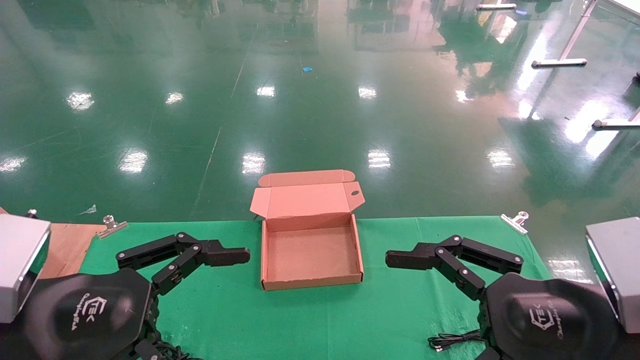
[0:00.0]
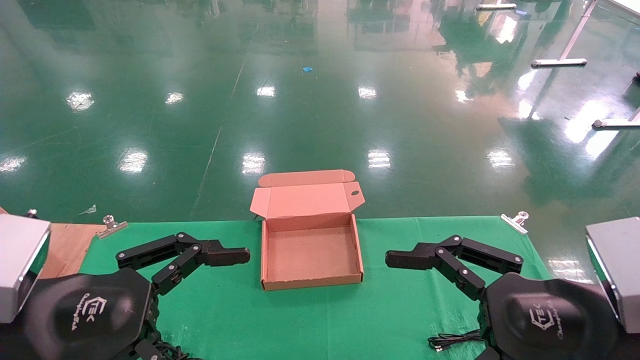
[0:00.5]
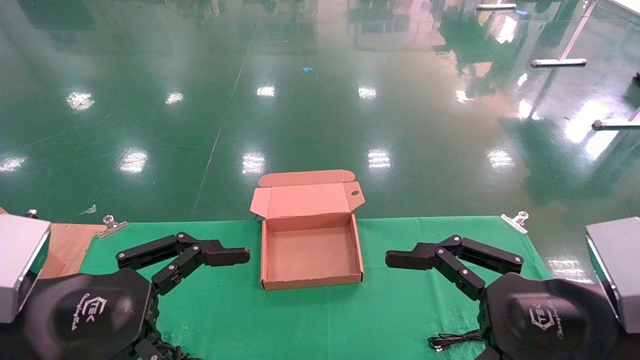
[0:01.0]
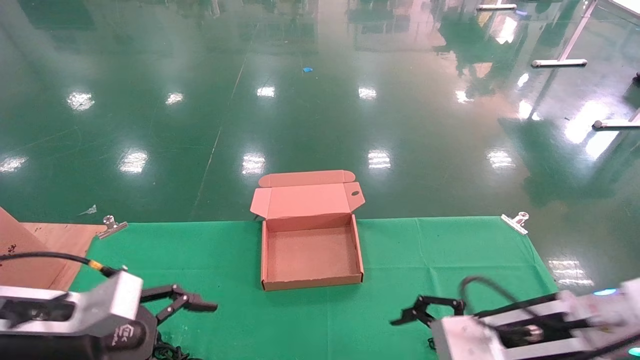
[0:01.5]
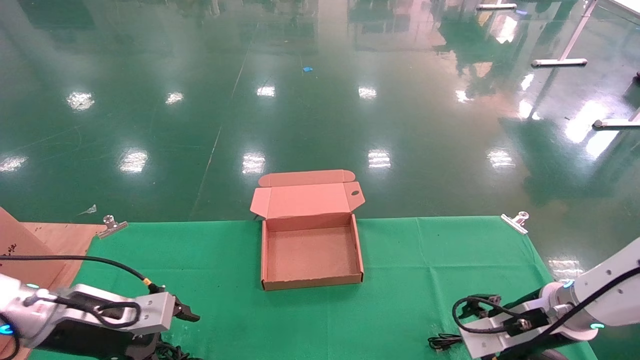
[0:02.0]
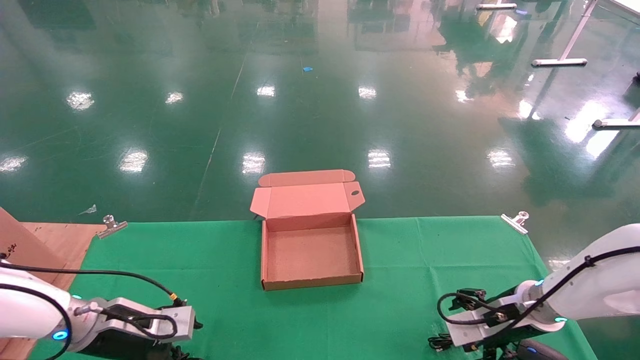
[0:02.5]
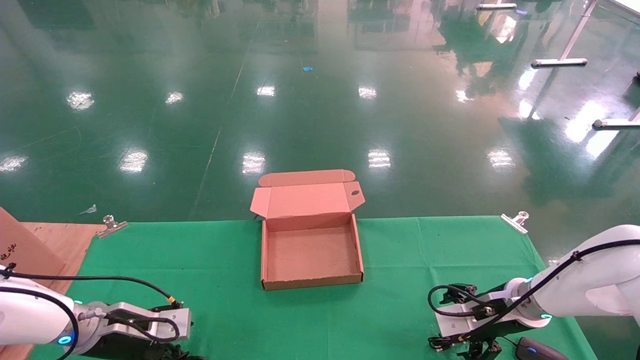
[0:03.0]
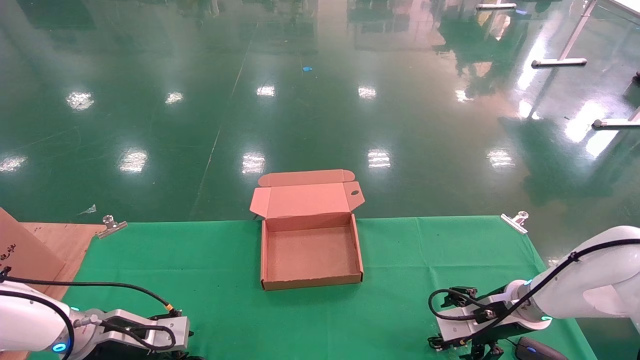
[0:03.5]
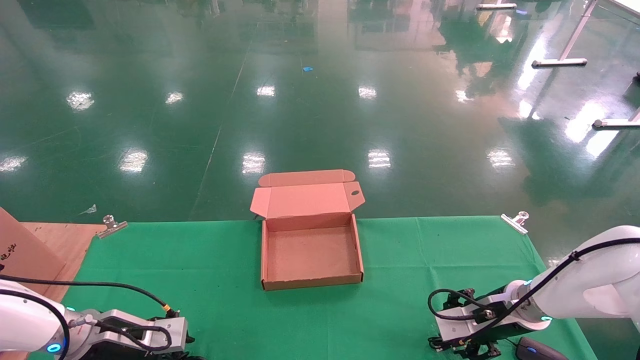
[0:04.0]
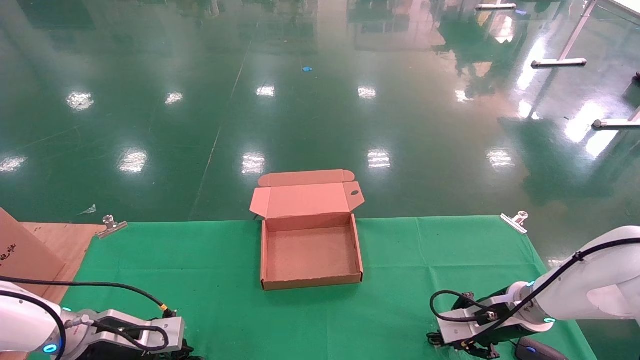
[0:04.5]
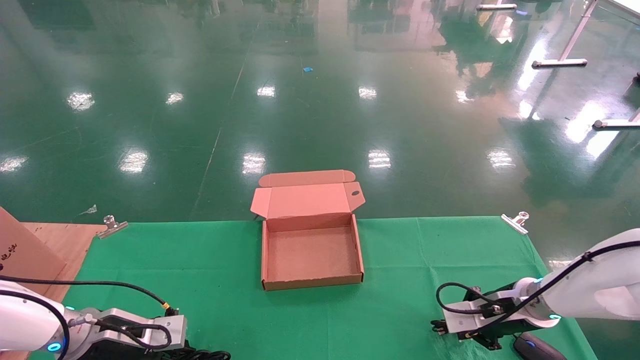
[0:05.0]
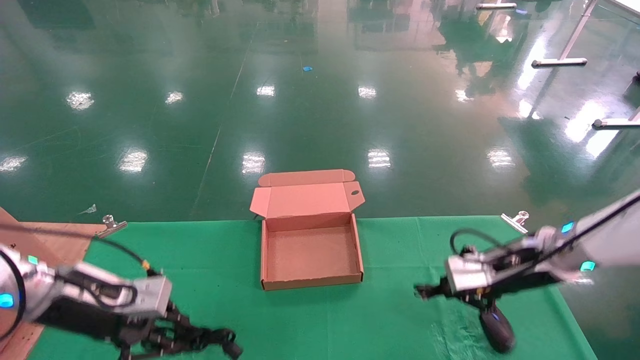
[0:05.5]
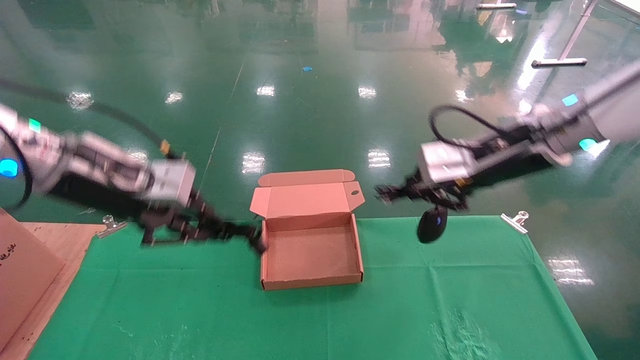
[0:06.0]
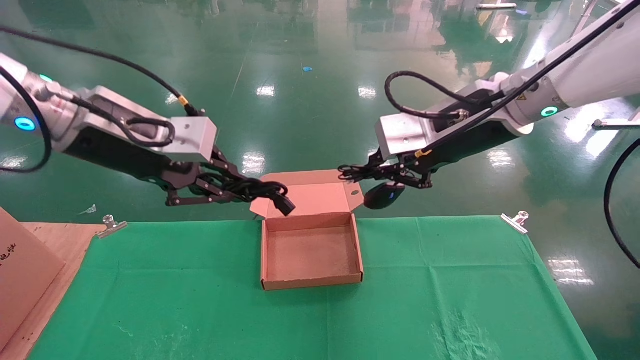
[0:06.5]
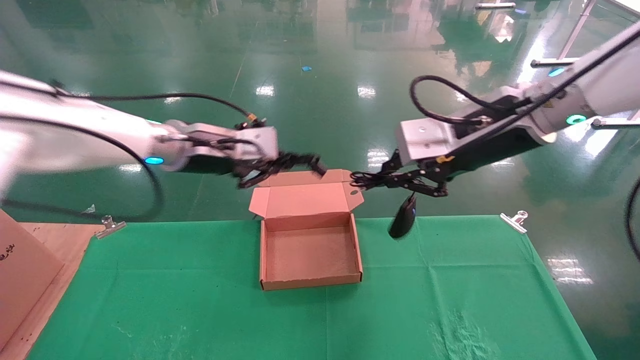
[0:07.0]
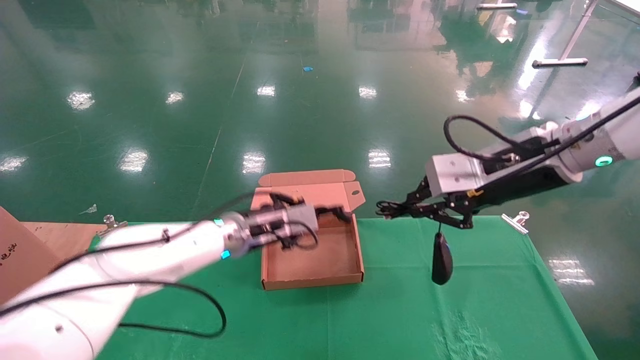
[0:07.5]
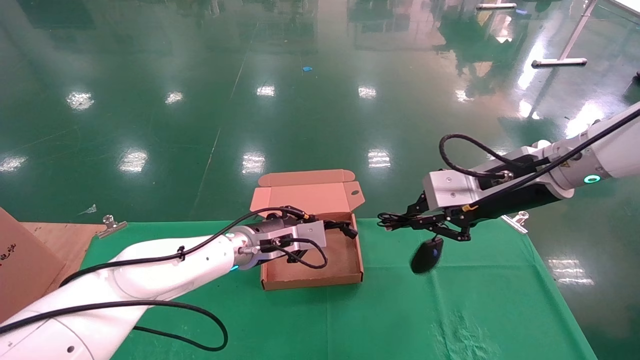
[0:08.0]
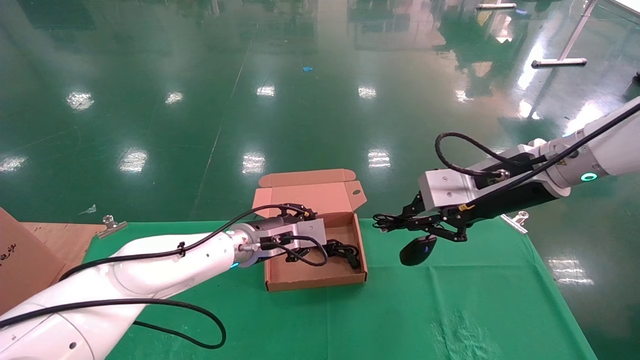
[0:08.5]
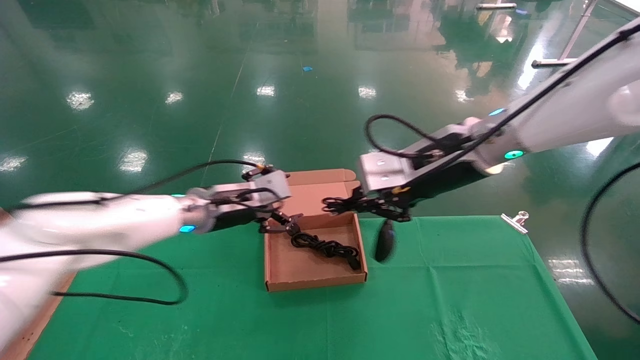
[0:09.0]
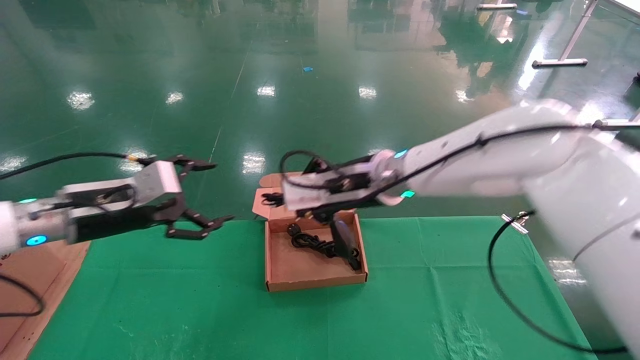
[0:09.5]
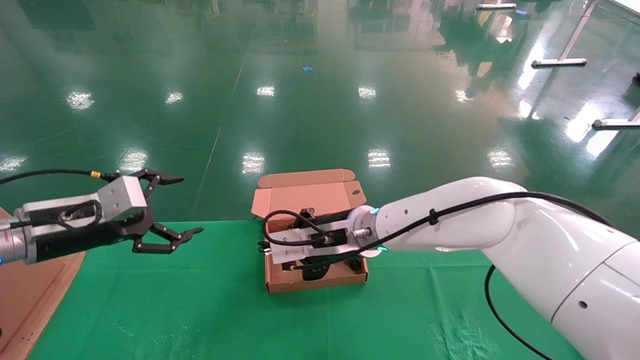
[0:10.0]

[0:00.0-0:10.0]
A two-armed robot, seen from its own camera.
Step, 0:01.5 to 0:05.0: Grab and lift both the mouse and power cord from the accessory packaging area at the same time.
0:00.0 to 0:02.0: The two grippers go approximately 20 cm forward and downward.
0:02.0 to 0:04.0: The right gripper shifts some 5 cm forward. Meanwhile the left gripper heads downward, covering about 5 cm.
0:04.0 to 0:06.0: The two grippers go approximately 25 cm upward. The left gripper closes, while the right gripper closes its fingers.
0:06.0 to 0:08.0: The left gripper is displaced downward, to the right and forward by some 25 cm.
0:08.0 to 0:10.0: The right gripper travels to the left and downward by about 20 cm. The left gripper is displaced to the left and backward by some 25 cm, and opens its fingers.

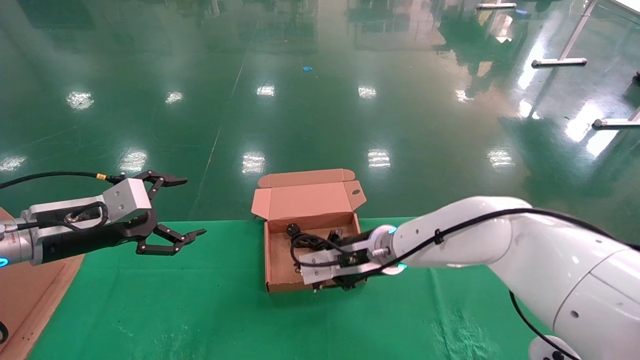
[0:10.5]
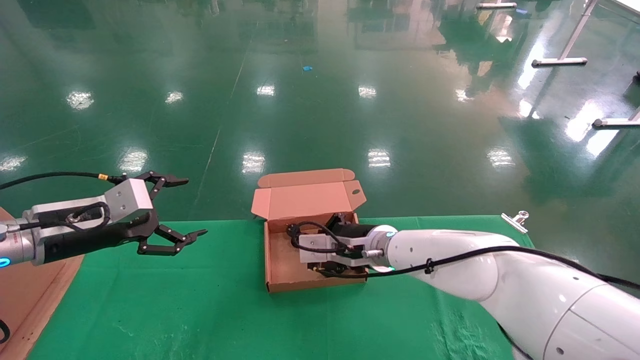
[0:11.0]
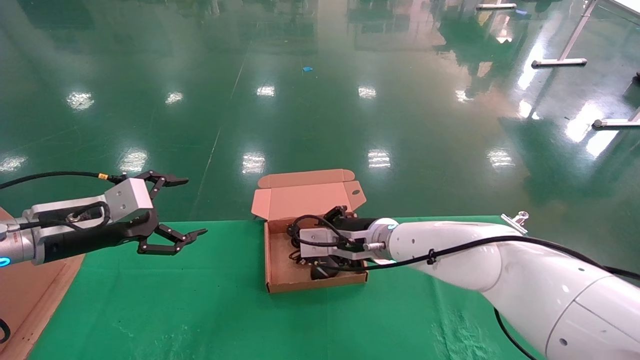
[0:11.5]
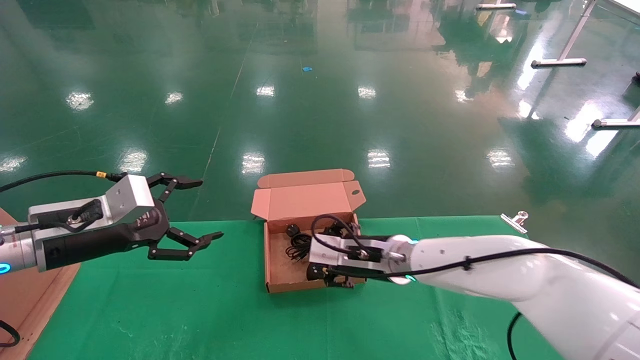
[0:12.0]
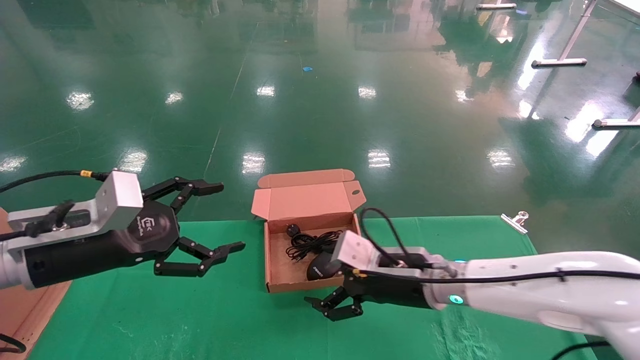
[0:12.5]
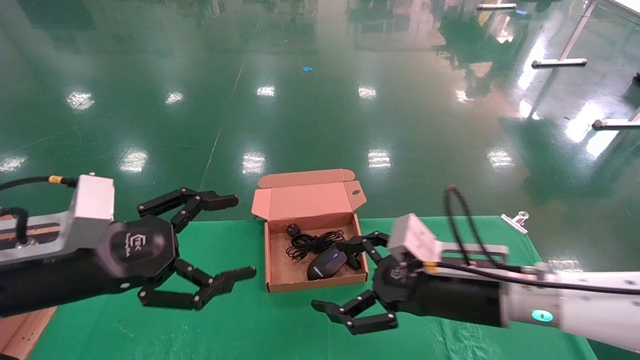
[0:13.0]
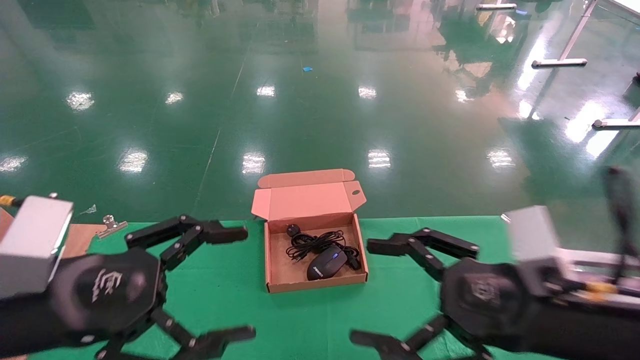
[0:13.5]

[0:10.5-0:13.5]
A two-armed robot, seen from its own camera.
0:10.5 to 0:12.0: The right gripper opens its fingers.
0:12.0 to 0:13.5: The right gripper heads backward and to the right, covering about 25 cm, and opens. The left gripper moves backward and to the right, about 15 cm.

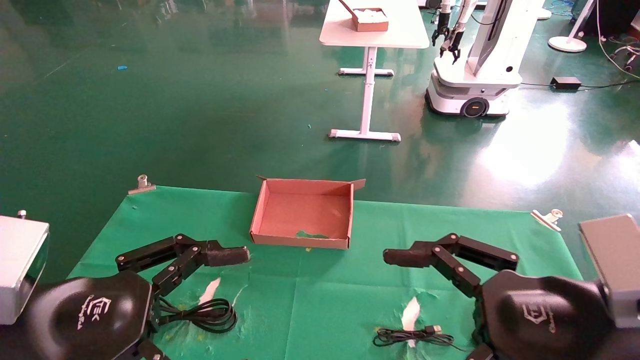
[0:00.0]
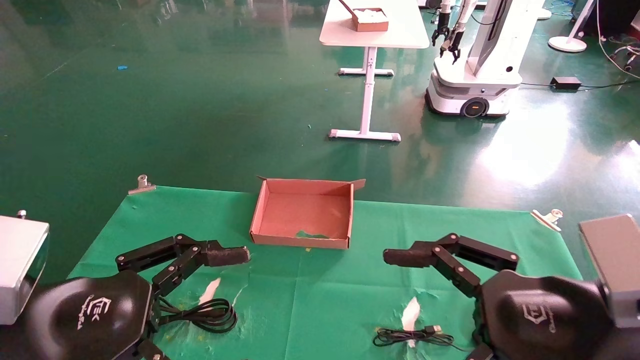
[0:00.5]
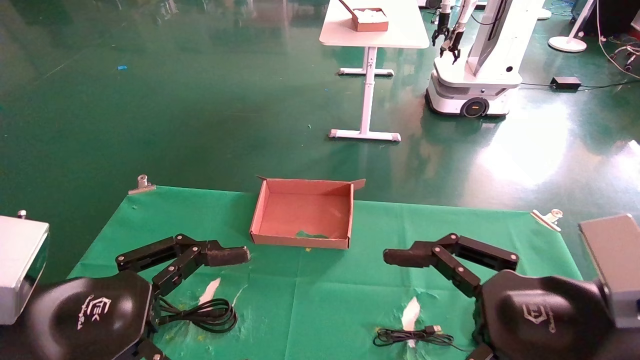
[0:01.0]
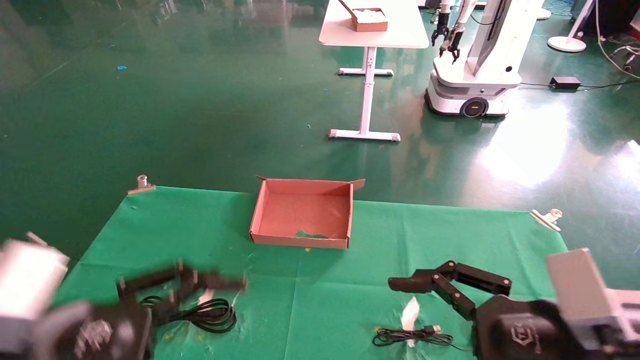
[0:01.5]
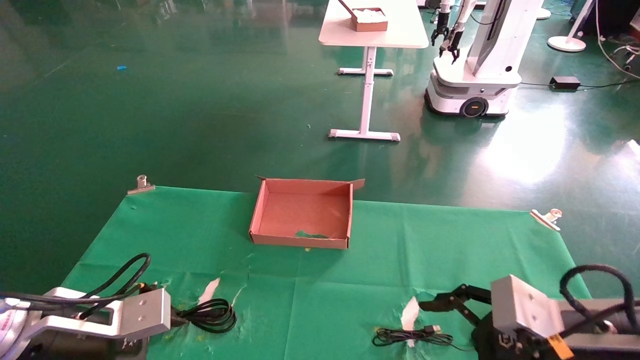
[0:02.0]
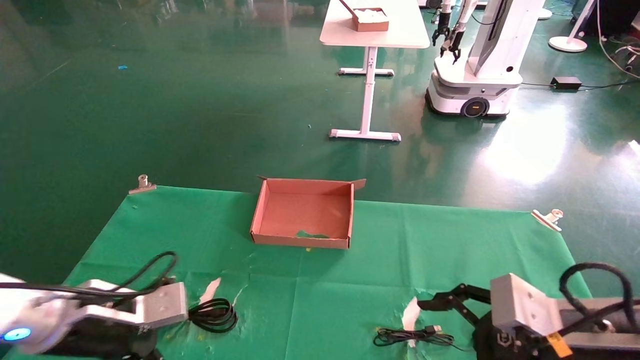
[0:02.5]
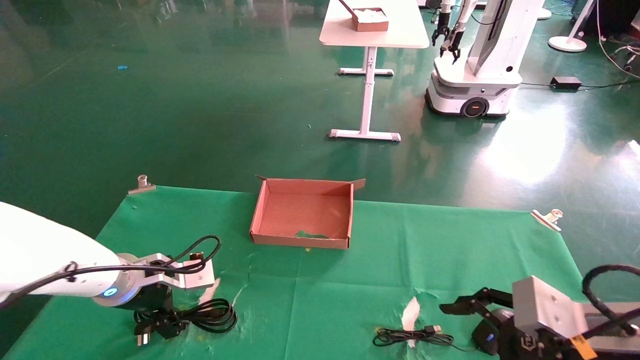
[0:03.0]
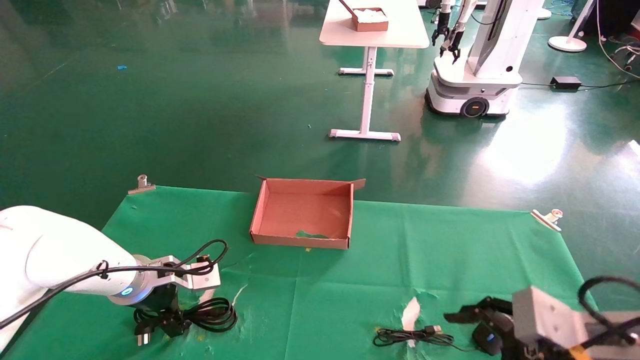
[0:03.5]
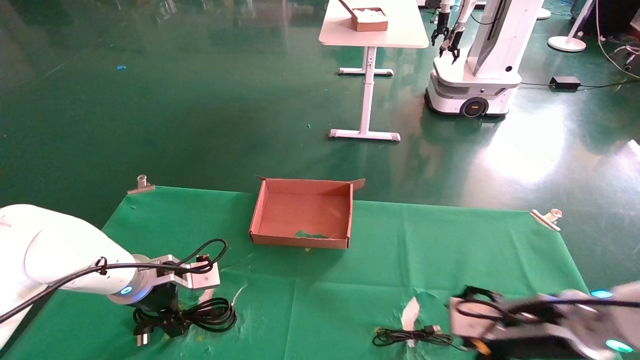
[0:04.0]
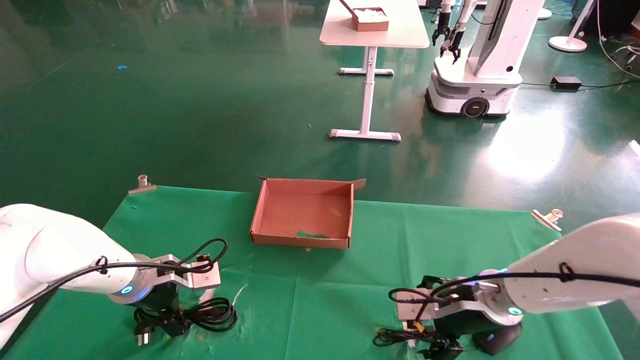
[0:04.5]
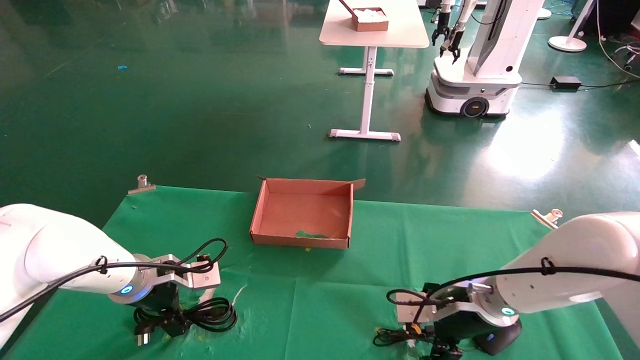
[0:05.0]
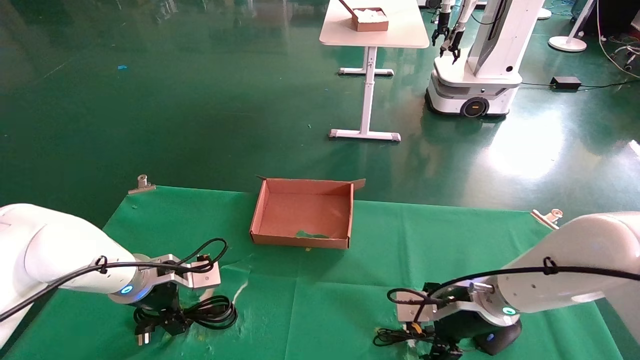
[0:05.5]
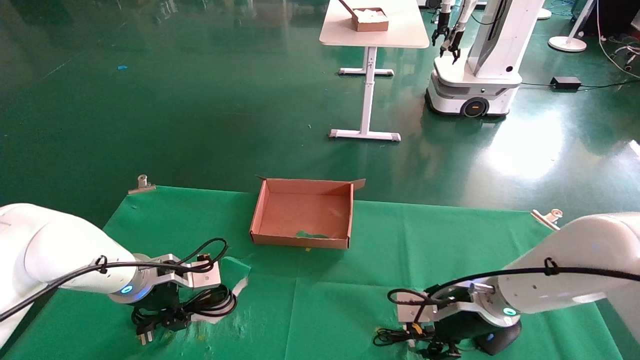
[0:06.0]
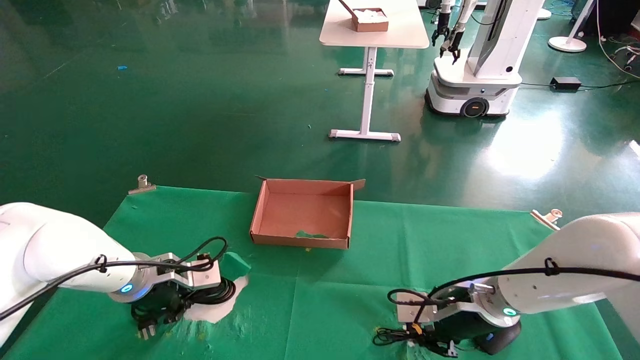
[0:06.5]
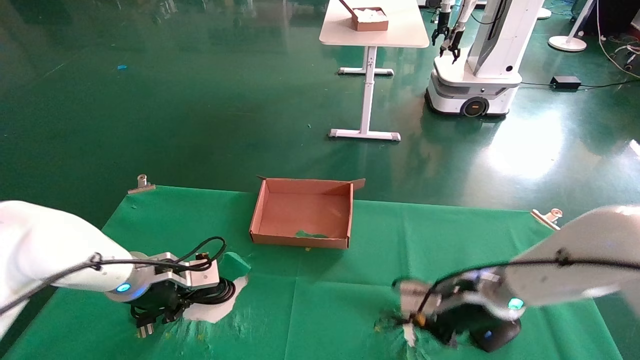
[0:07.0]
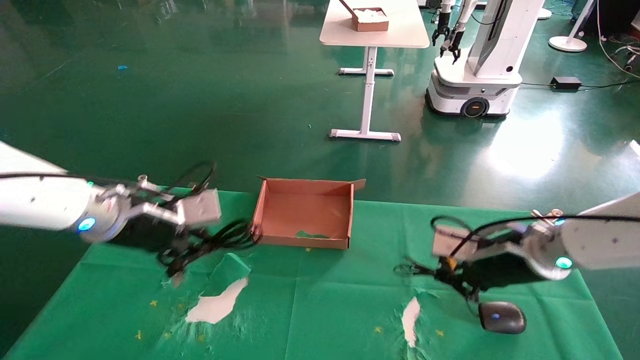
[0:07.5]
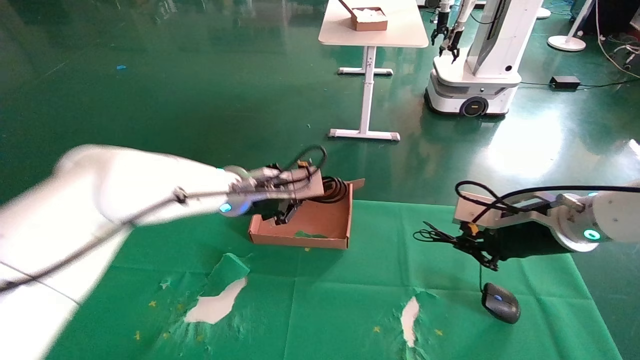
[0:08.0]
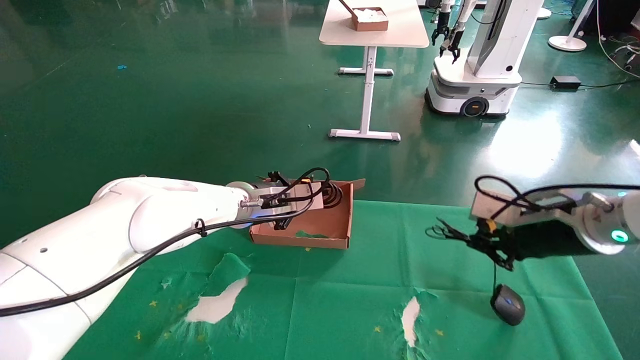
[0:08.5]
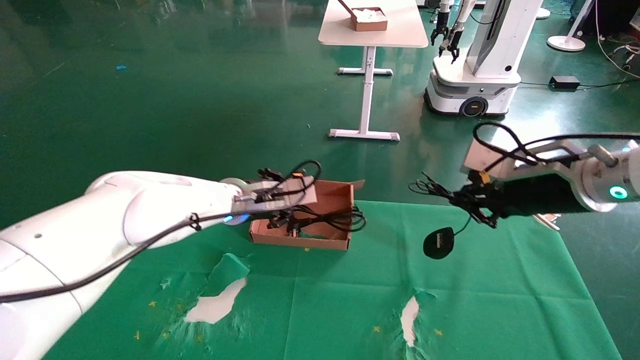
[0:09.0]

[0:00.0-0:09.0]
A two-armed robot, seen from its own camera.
Step, 0:02.0 to 0:06.5: Grab and lift both the mouse and power cord from the accessory packaging area at the same time.
0:00.0 to 0:02.0: The left gripper goes about 10 cm forward and downward. The right gripper shifts approximately 5 cm downward.
0:02.0 to 0:04.5: The grippers both shift forward by about 15 cm.
0:04.5 to 0:07.0: The left gripper closes up; the right gripper closes.
0:07.0 to 0:09.0: The right gripper shifts some 15 cm upward. Meanwhile the left gripper shifts approximately 20 cm to the right, upward and forward.
